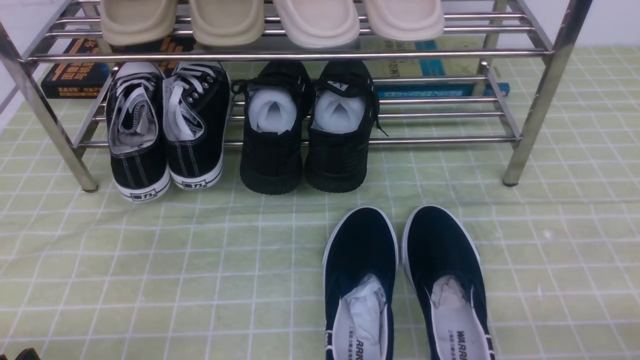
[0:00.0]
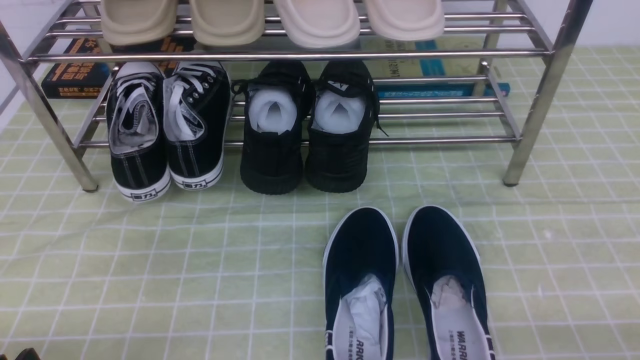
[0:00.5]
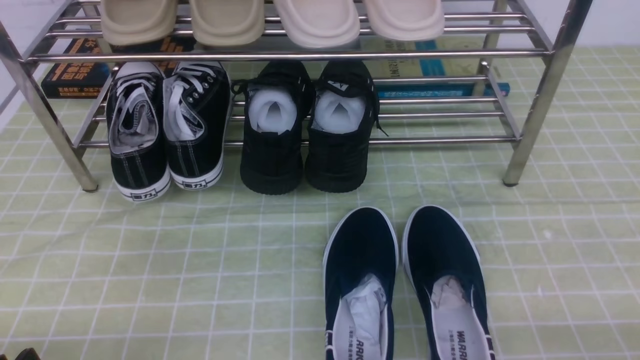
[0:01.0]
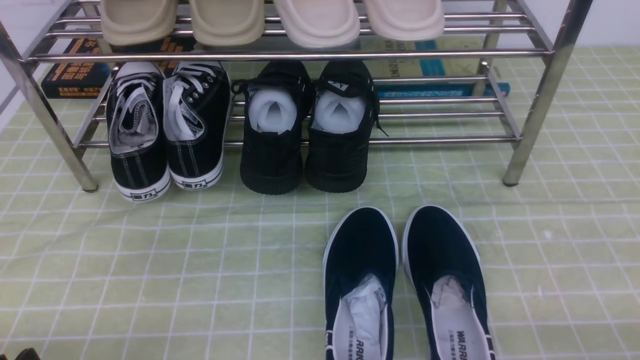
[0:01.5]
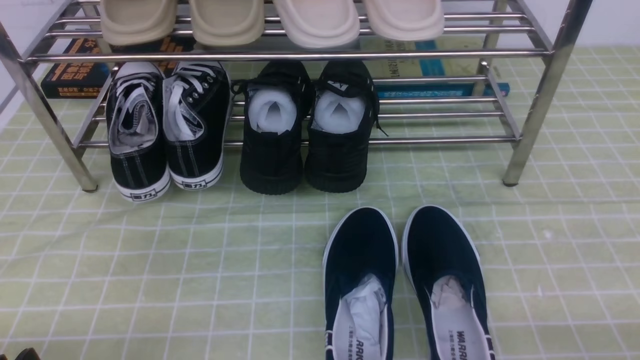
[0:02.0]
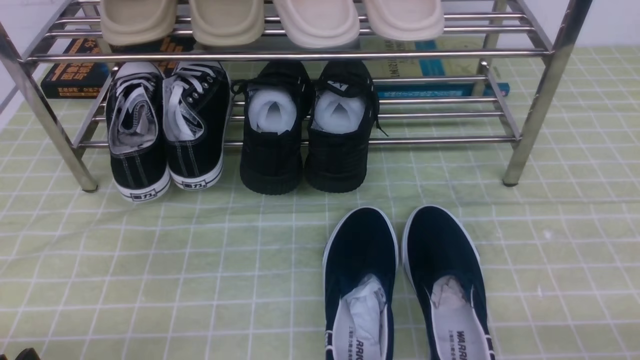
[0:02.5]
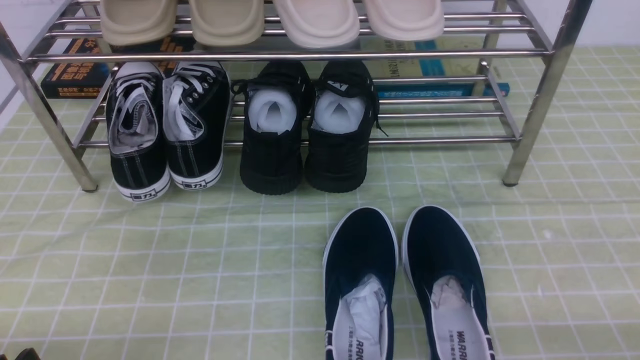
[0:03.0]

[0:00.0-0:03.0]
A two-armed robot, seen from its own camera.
0:01.5 to 0:03.0: Both grippers stay put.

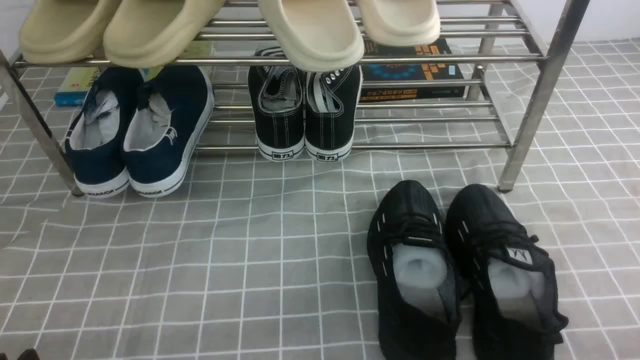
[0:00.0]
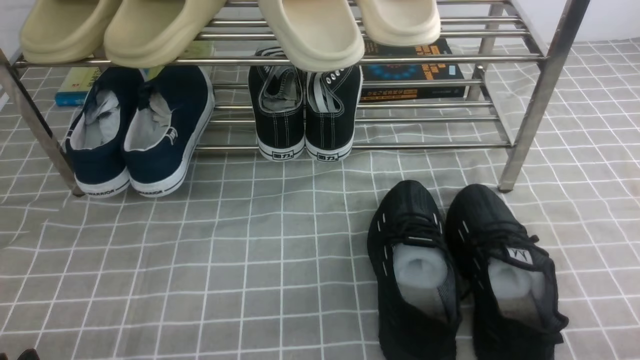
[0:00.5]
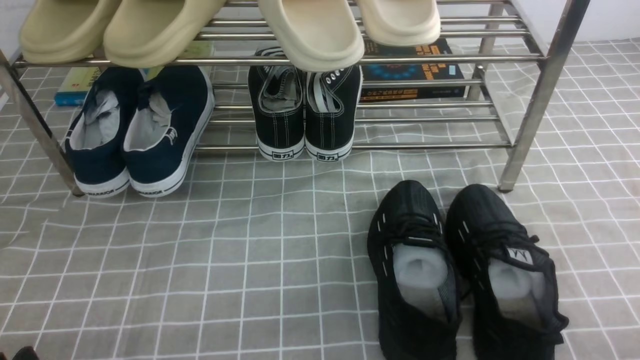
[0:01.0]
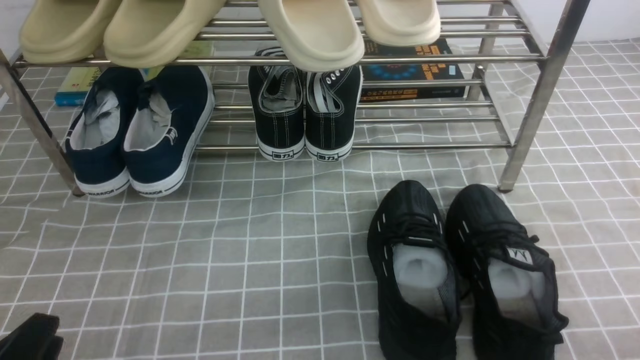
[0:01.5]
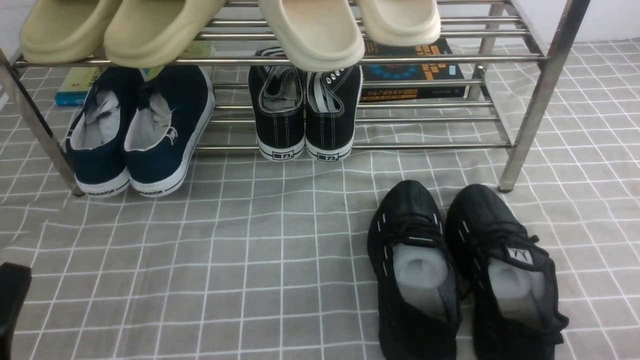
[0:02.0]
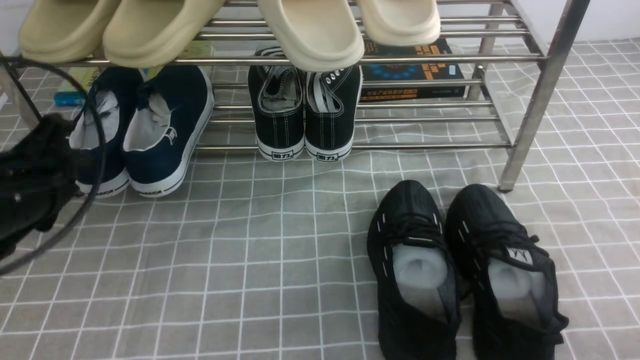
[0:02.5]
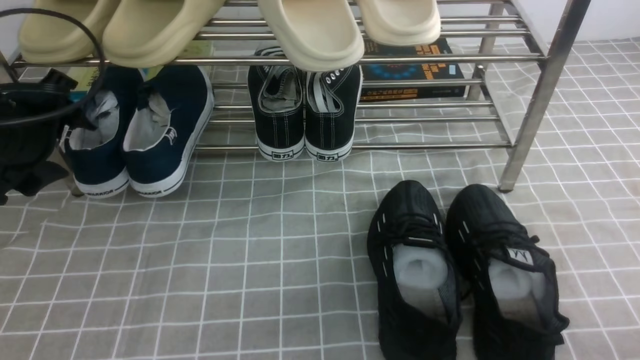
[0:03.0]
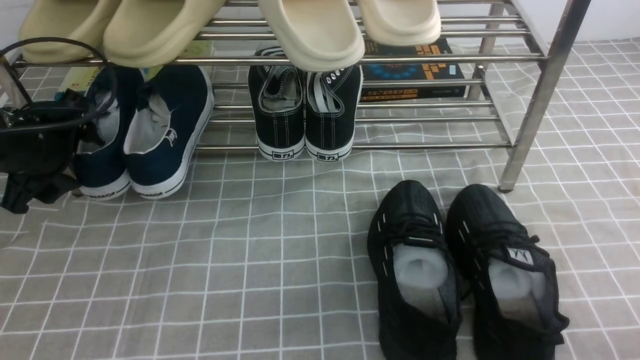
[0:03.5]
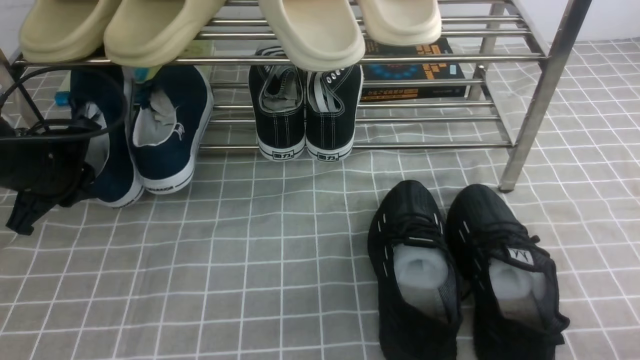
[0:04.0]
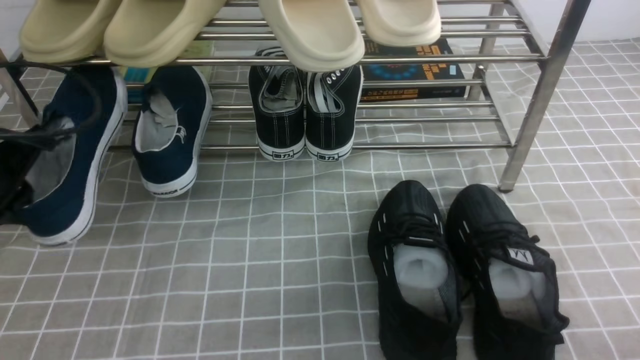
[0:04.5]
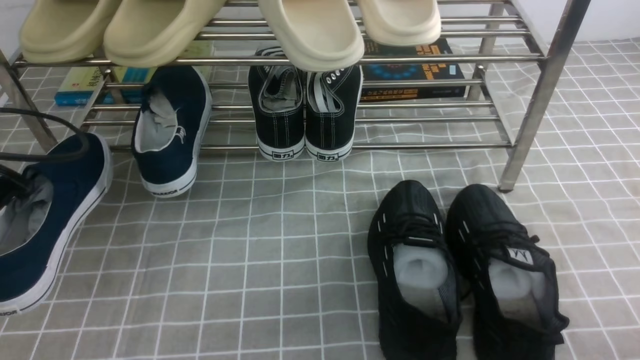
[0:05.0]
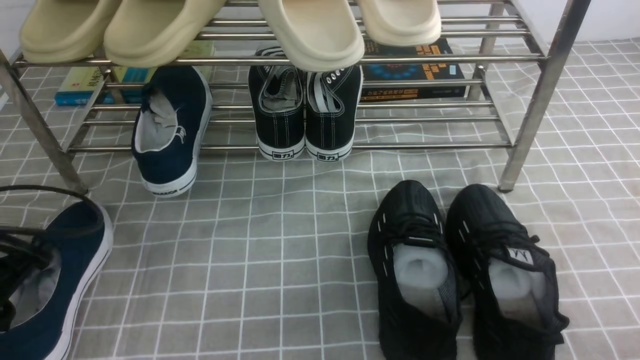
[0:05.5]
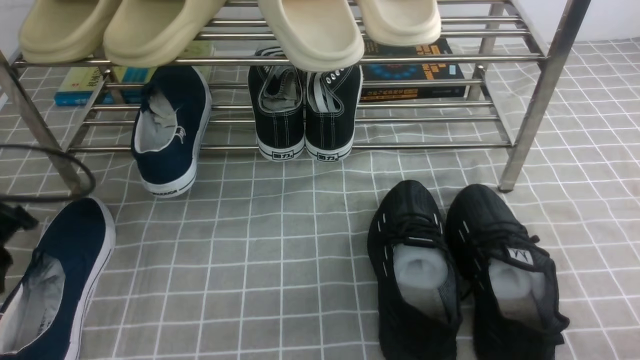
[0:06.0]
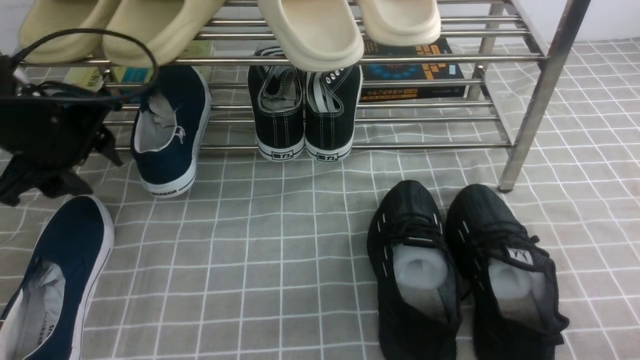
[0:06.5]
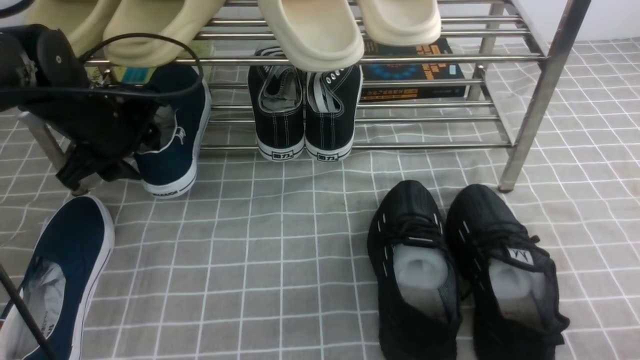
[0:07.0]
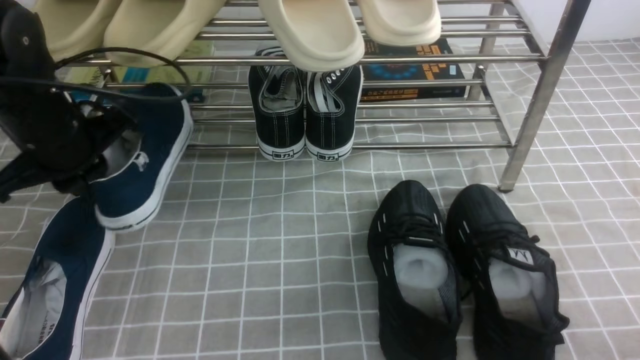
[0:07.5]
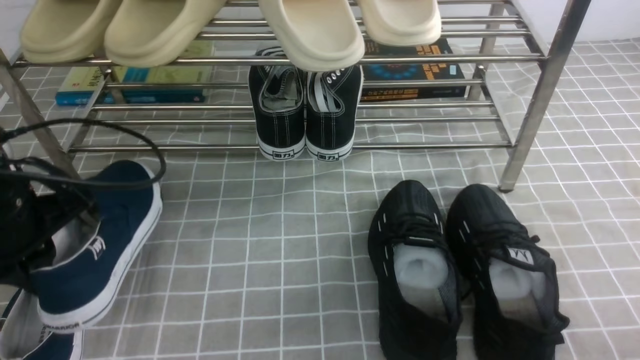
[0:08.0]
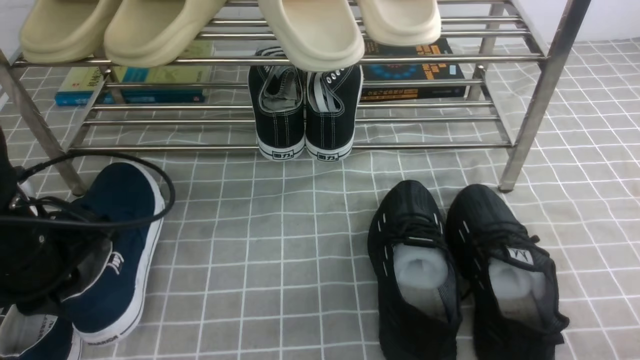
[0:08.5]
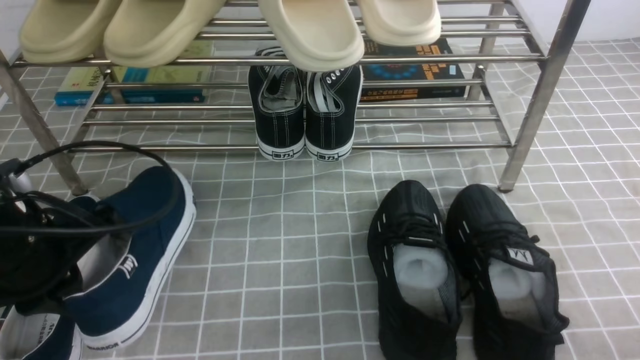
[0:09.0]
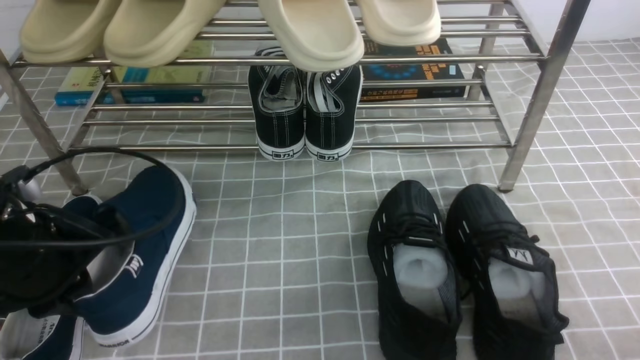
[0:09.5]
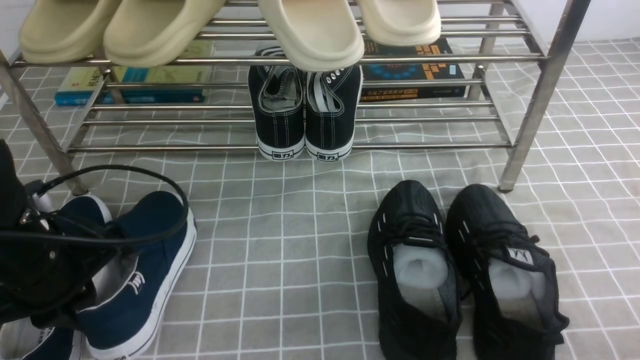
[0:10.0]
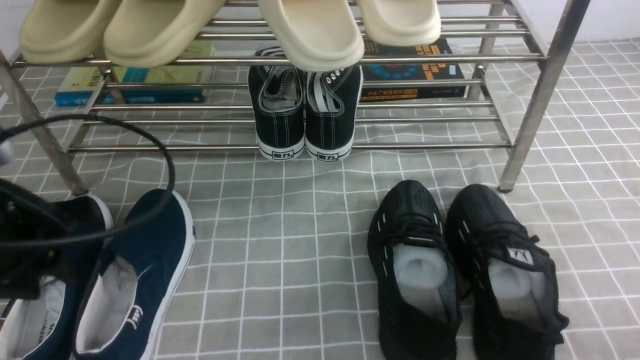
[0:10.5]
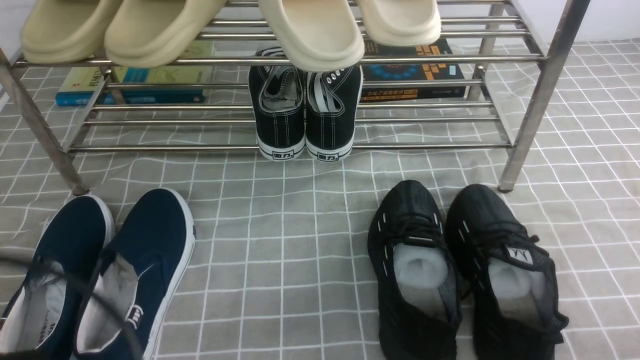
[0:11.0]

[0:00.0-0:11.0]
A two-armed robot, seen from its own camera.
Step, 0:00.0 to 0:04.0: use the left arm to clamp a shoe on the left side of the shoe rack.
Step, 0:04.5 to 0:06.0: Use your left arm to remove the clamped shoe from the shoe rack and put it down.
Step, 0:06.5 to 0:07.0: use the left arm to clamp a shoe on the left side of the shoe rack.
Step, 0:07.5 to 0:10.5: Use your left arm to remove the clamped shoe from the shoe rack and put it down.
0:00.0 to 0:02.0: The left gripper goes about 5 cm upward.
0:02.0 to 0:03.5: The left gripper is displaced forward by some 25 cm, and opens its fingers.
0:03.5 to 0:05.5: The left gripper travels backward by about 10 cm, and closes its fingers.
0:05.5 to 0:07.5: The left gripper moves forward, to the right and upward, approximately 15 cm, and opens and closes again.
0:07.5 to 0:09.0: The left gripper moves backward, about 10 cm.
0:09.0 to 0:11.0: The left gripper shifts about 15 cm backward.

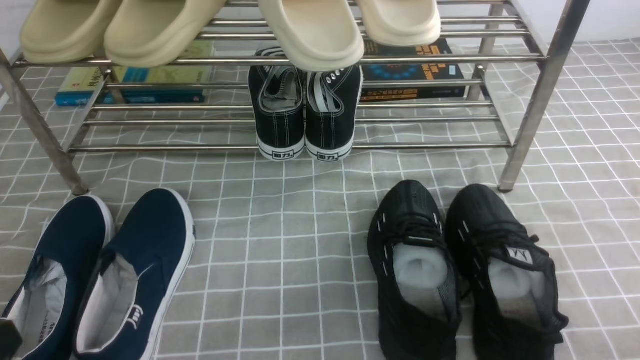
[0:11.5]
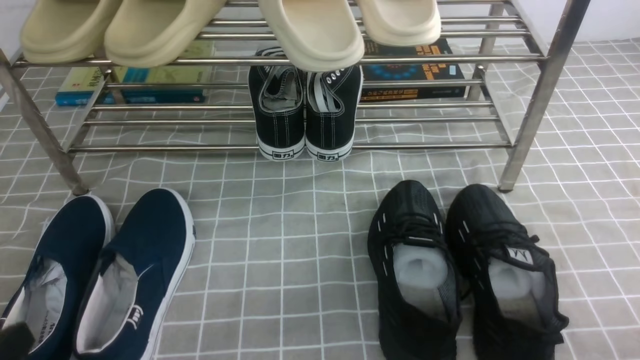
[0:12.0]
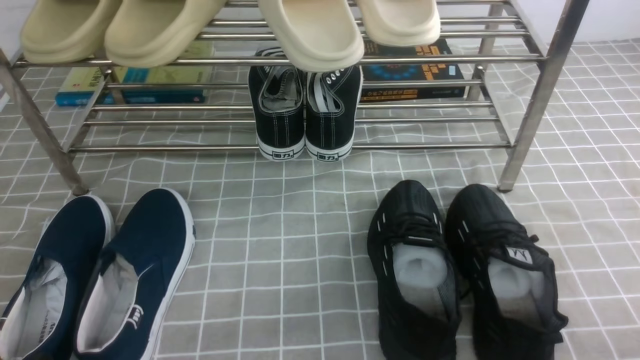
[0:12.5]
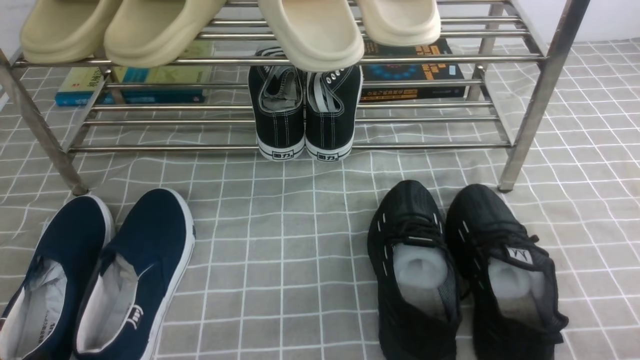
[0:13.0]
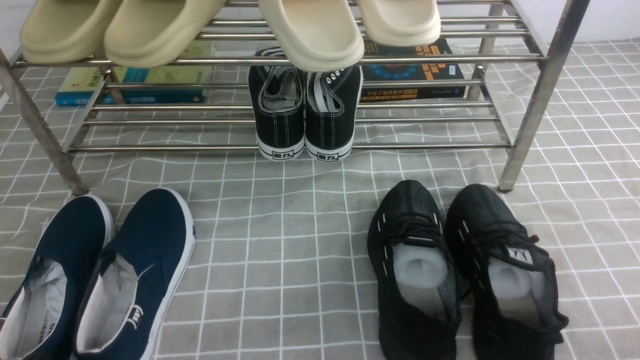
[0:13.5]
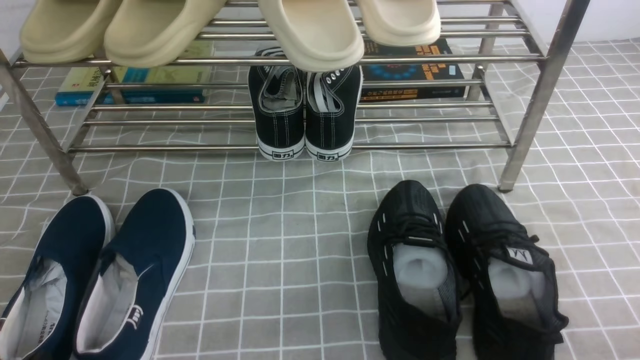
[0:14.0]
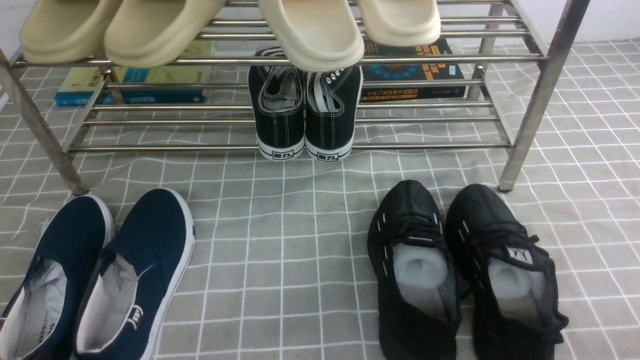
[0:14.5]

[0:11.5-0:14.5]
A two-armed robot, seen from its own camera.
0:11.5 to 0:13.0: The left gripper shifts approximately 10 cm downward.
0:13.0 to 0:14.5: Both grippers stay put.
